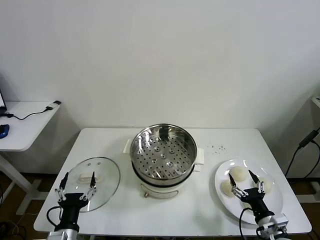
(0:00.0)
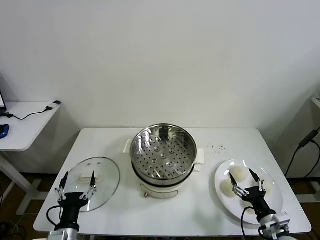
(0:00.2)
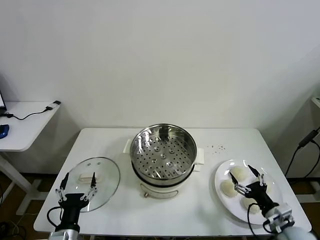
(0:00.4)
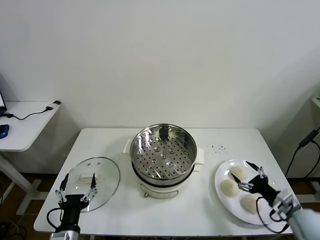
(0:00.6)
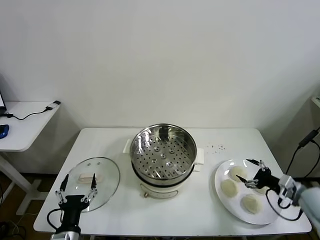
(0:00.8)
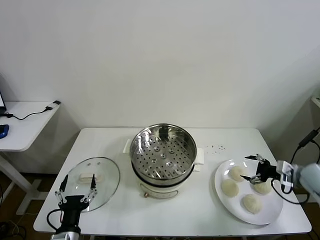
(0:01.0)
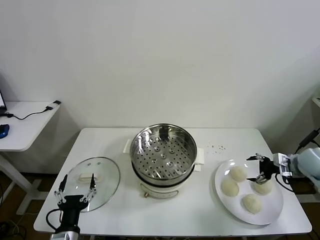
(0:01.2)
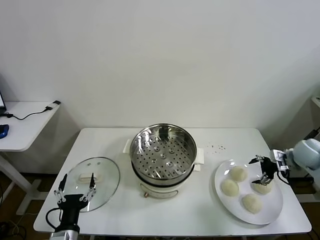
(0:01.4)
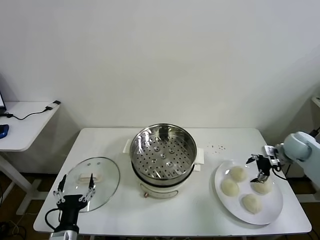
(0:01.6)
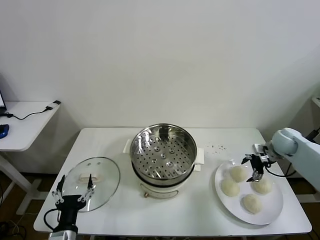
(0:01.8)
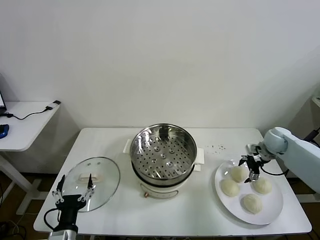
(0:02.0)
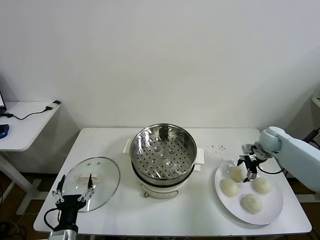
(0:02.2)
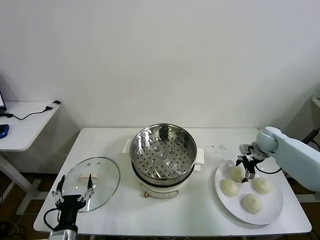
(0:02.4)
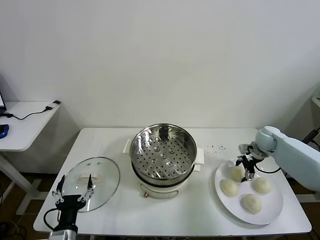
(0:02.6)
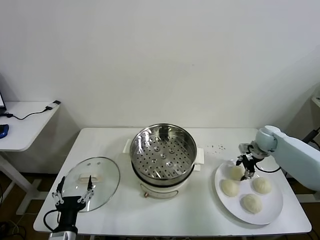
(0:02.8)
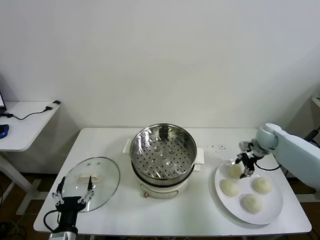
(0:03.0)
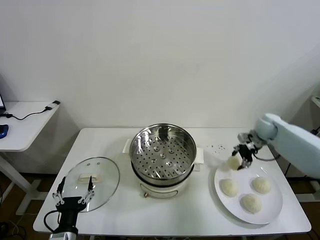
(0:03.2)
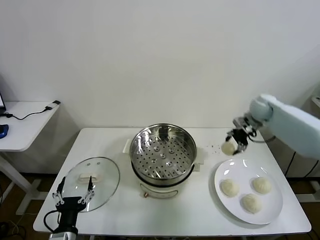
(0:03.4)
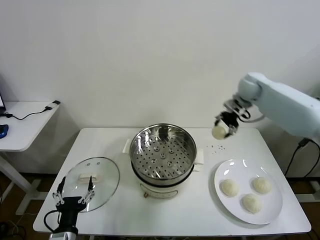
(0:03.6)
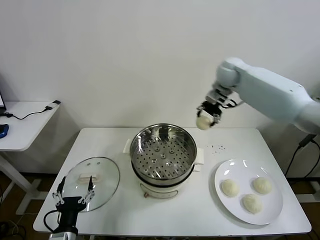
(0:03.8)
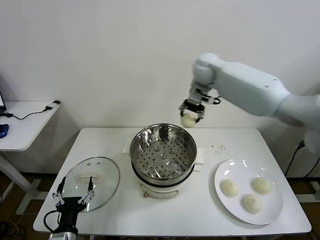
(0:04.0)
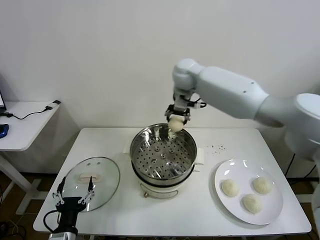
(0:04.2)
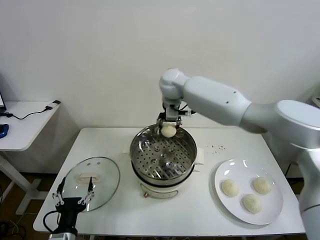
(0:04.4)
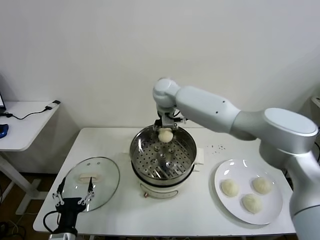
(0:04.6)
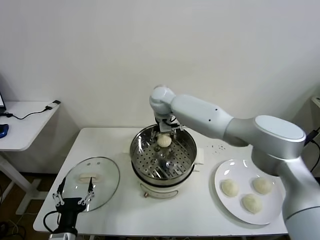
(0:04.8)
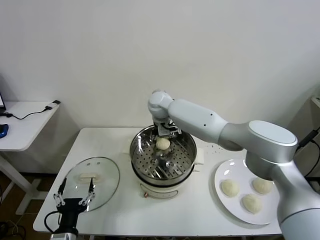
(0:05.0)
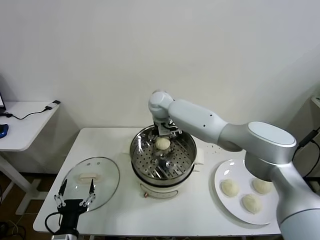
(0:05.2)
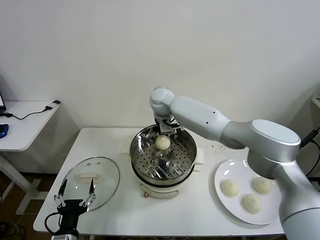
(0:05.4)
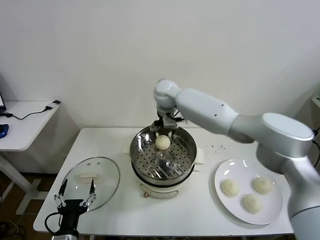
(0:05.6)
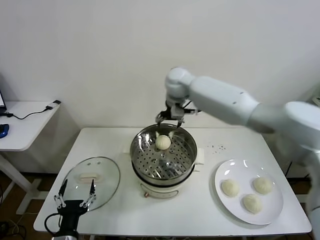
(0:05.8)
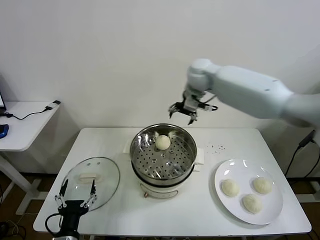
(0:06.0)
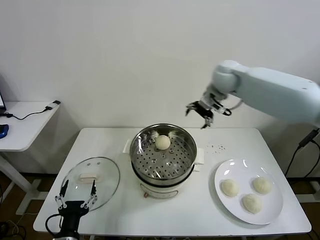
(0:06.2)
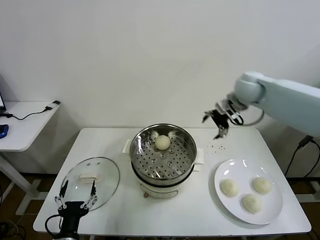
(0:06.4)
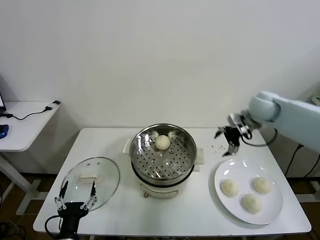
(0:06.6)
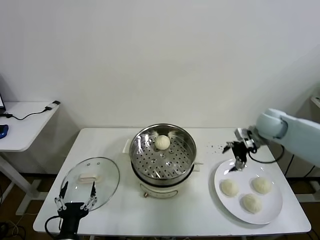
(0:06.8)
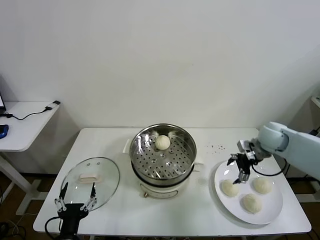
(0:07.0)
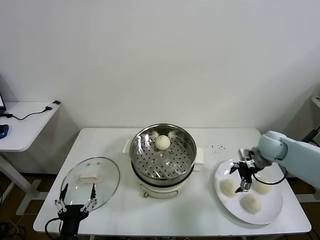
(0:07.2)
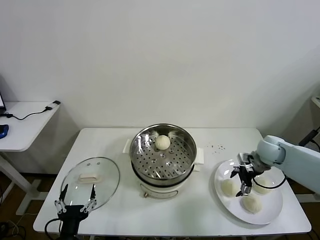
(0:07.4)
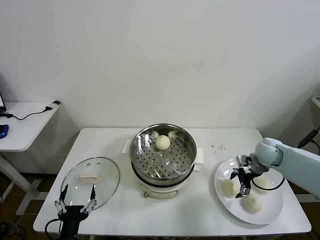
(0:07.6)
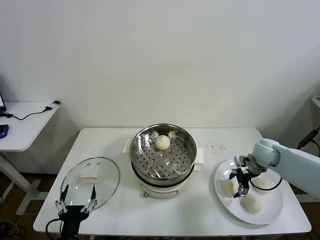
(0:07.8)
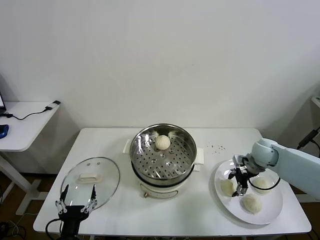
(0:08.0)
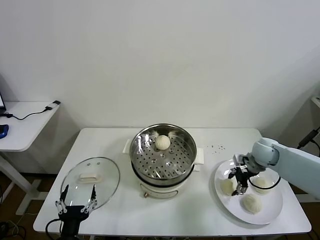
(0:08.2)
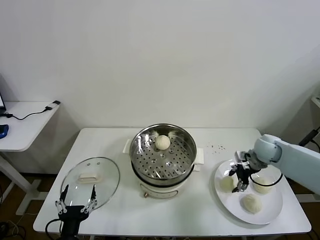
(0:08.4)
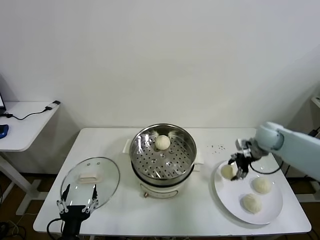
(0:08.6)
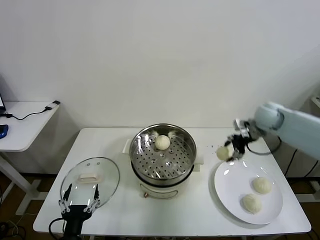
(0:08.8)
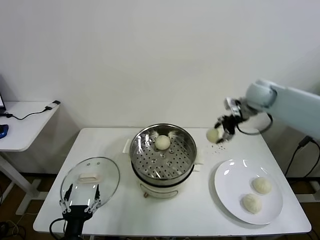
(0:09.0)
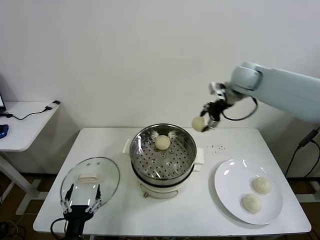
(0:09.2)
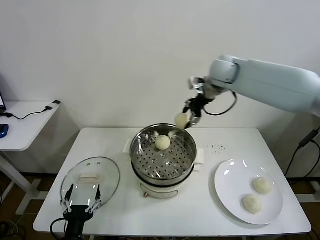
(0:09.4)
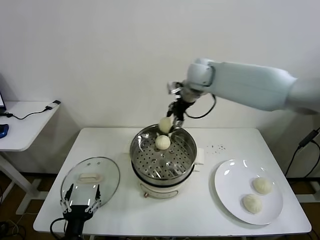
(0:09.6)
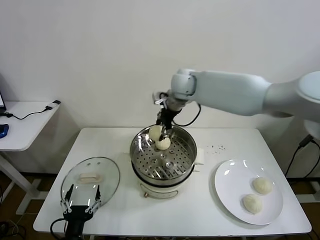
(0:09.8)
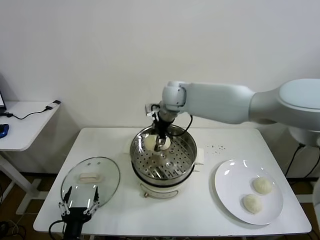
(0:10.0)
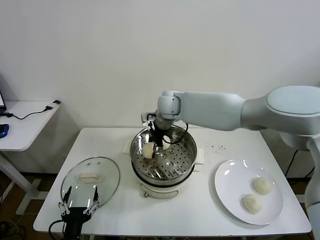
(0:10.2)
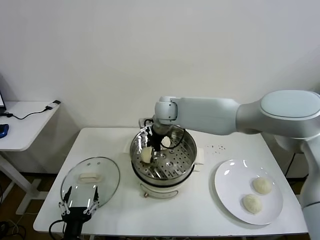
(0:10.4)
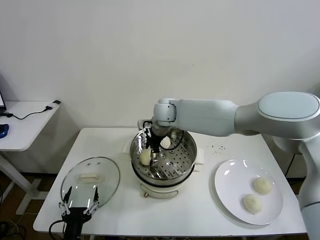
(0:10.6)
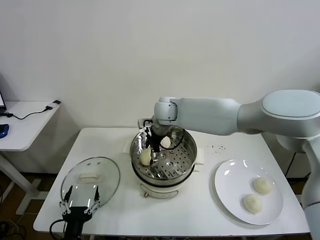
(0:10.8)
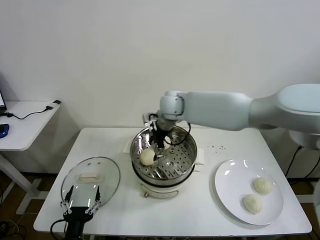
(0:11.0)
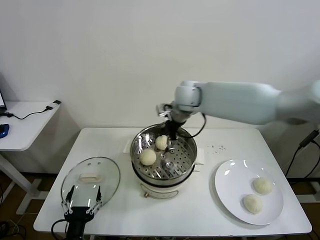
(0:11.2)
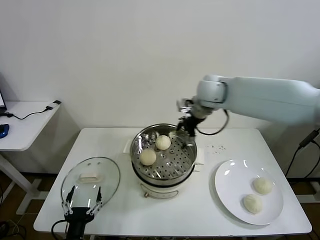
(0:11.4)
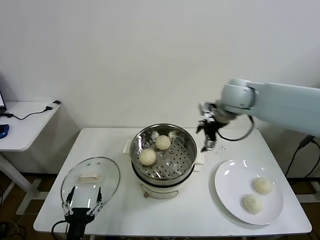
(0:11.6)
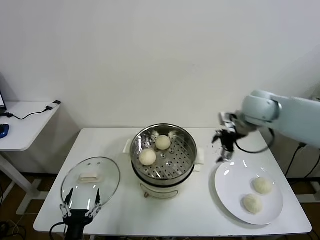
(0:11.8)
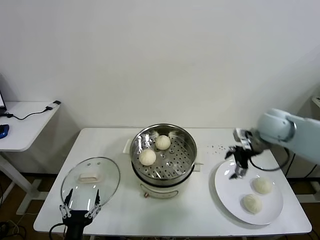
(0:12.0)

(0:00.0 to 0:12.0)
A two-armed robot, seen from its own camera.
Task of the whole recording: take steamed baozi put them in steamer then cover it.
Step, 0:00.0 - 0:03.0: Grasp the baozi in the plate with right gripper.
Step, 0:03.2 - 0:05.6: Place the baozi on the steamer with right gripper.
Step, 0:05.8 - 0:08.2: Grasp the baozi in the plate with right gripper.
Step, 0:08.4 - 0:11.2: Place the baozi on the steamer with right gripper.
0:01.6 - 0:03.0: The right gripper moves forward and to the left, some 10 cm, and closes its fingers.
0:03.0 - 0:04.4: The right gripper moves to the left and upward, approximately 40 cm.
0:04.4 - 0:06.0: The right gripper travels to the right by approximately 15 cm, and opens.
0:06.0 - 0:07.6: The right gripper heads downward, to the right and backward, covering about 35 cm.
0:07.6 - 0:09.0: The right gripper travels upward and forward by approximately 25 cm, and closes.
0:09.0 - 0:10.4: The right gripper moves to the left, about 30 cm.
0:10.4 - 0:12.0: The right gripper heads to the right, covering approximately 35 cm, and opens its fingers.

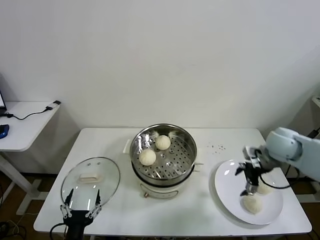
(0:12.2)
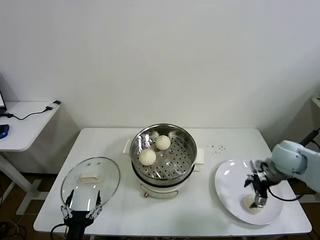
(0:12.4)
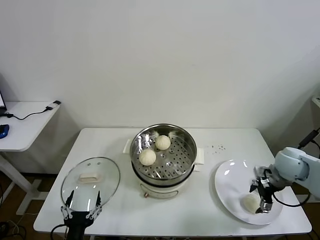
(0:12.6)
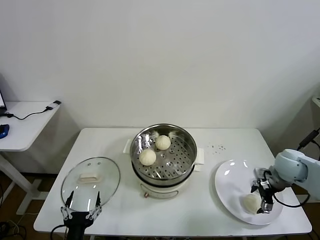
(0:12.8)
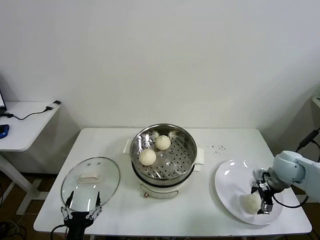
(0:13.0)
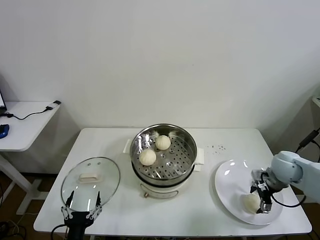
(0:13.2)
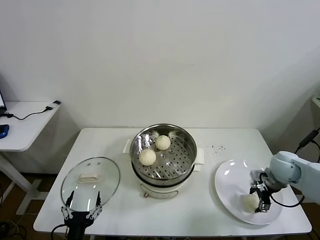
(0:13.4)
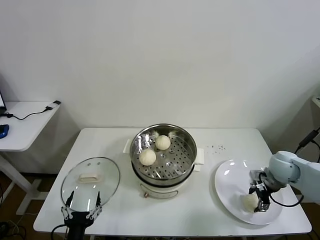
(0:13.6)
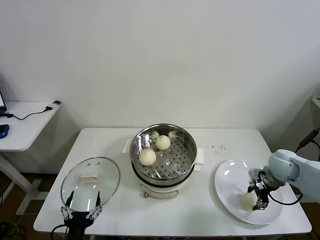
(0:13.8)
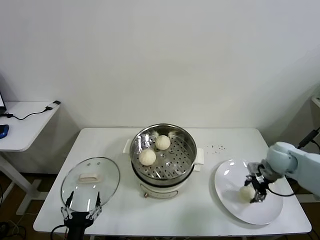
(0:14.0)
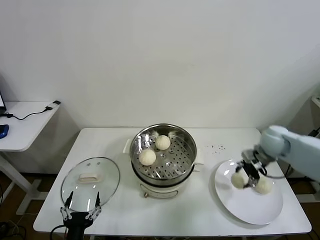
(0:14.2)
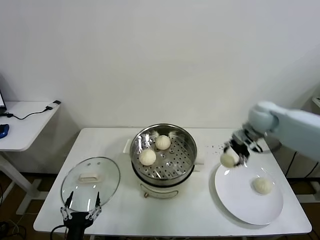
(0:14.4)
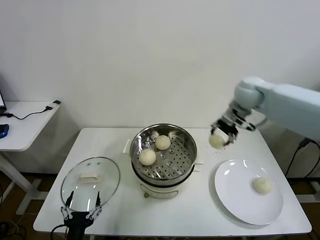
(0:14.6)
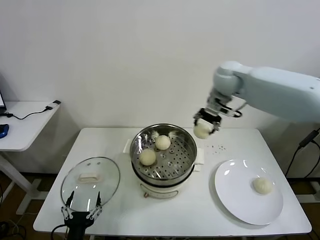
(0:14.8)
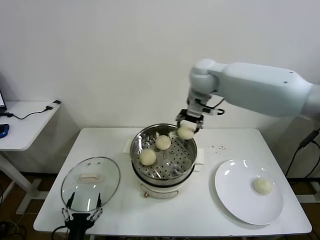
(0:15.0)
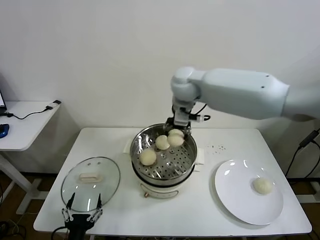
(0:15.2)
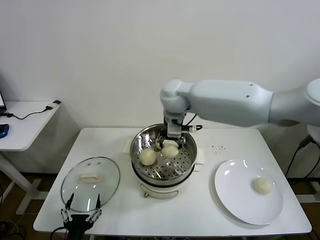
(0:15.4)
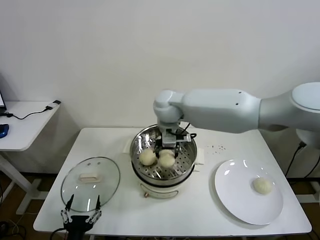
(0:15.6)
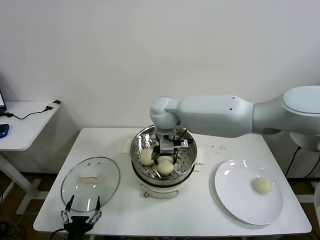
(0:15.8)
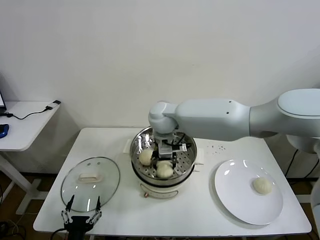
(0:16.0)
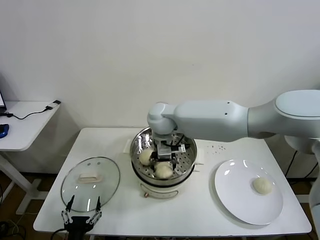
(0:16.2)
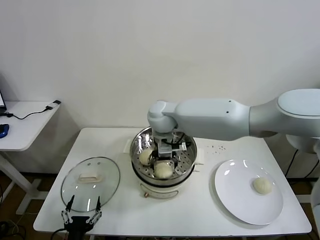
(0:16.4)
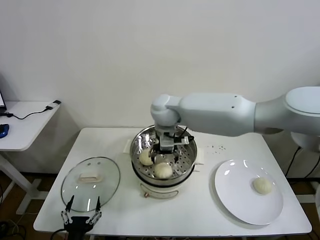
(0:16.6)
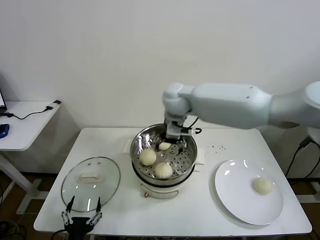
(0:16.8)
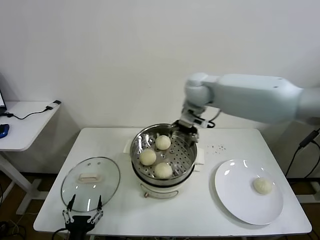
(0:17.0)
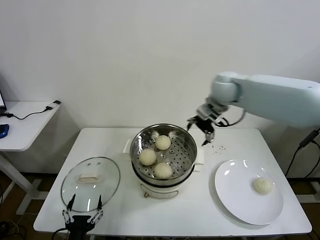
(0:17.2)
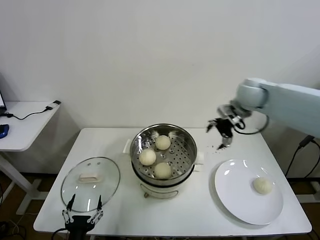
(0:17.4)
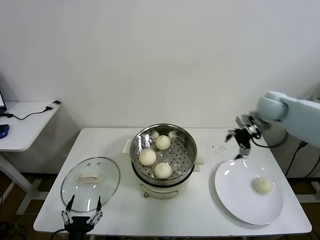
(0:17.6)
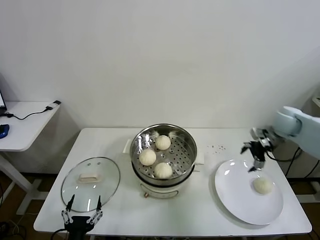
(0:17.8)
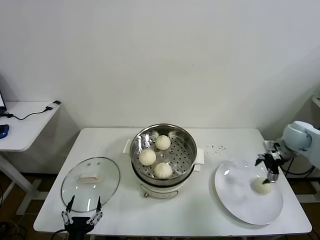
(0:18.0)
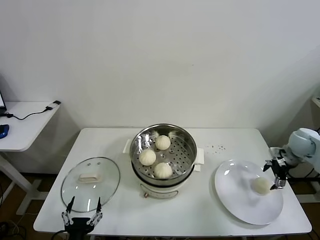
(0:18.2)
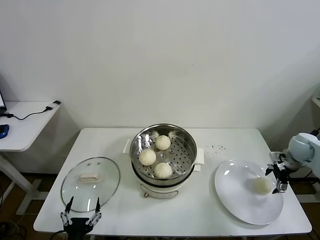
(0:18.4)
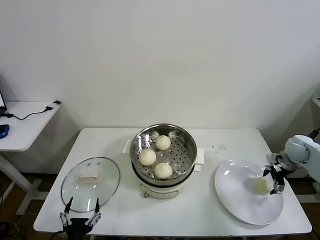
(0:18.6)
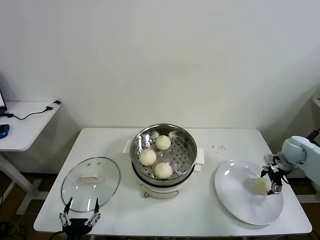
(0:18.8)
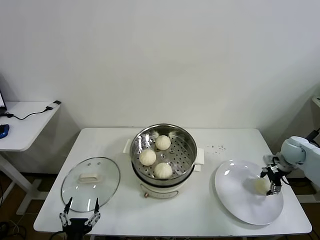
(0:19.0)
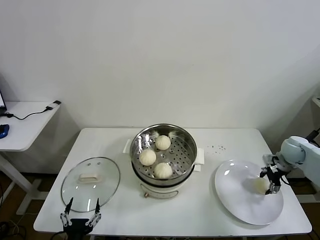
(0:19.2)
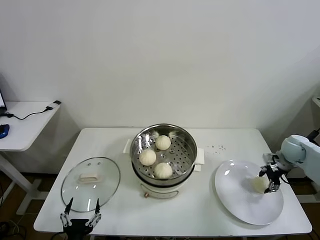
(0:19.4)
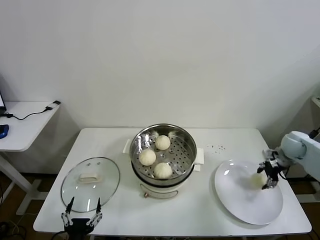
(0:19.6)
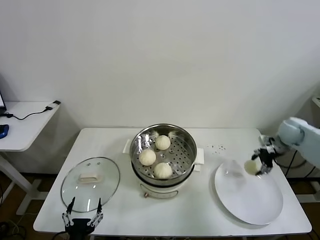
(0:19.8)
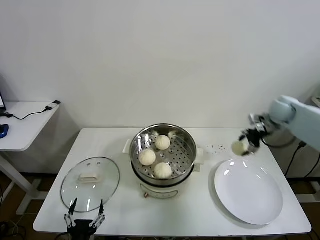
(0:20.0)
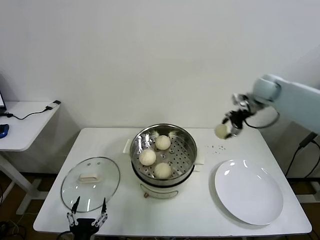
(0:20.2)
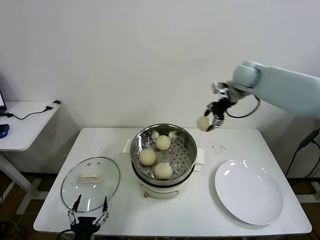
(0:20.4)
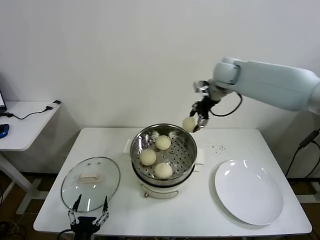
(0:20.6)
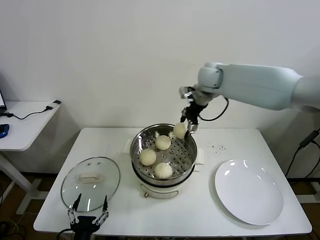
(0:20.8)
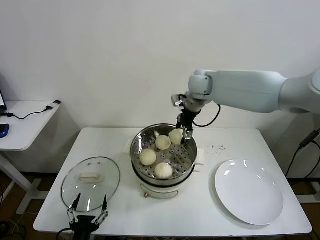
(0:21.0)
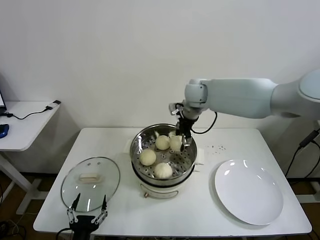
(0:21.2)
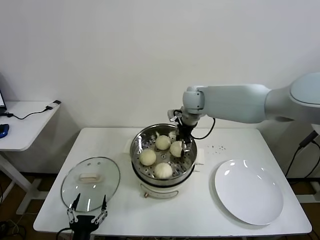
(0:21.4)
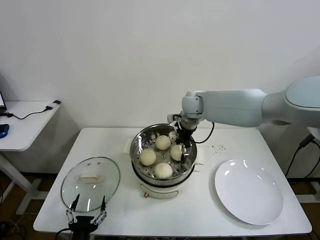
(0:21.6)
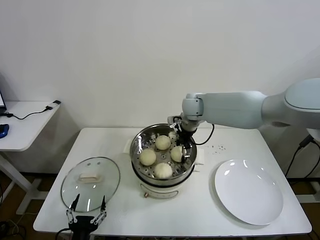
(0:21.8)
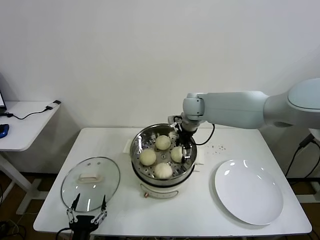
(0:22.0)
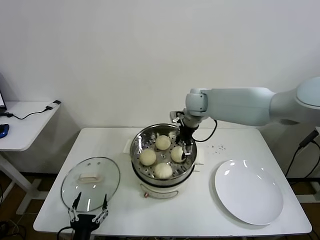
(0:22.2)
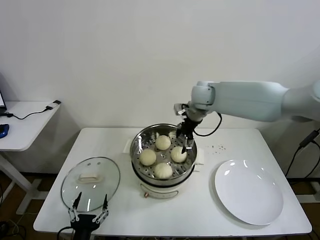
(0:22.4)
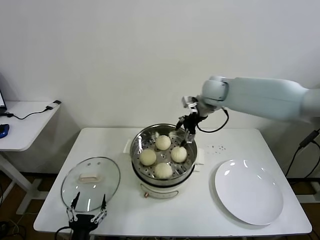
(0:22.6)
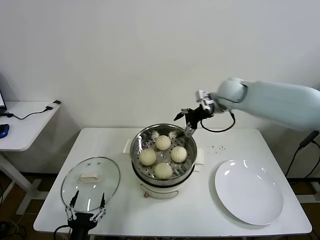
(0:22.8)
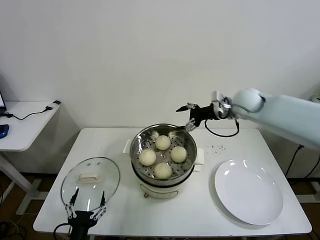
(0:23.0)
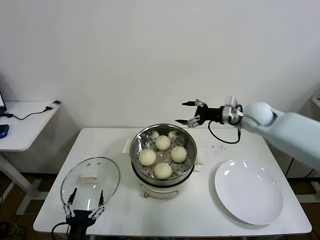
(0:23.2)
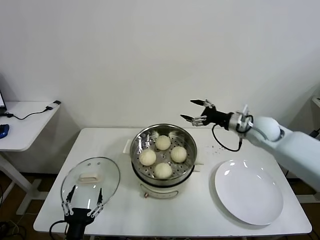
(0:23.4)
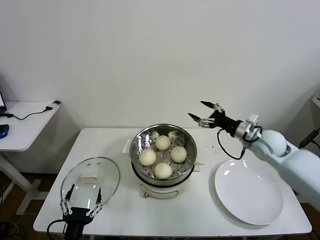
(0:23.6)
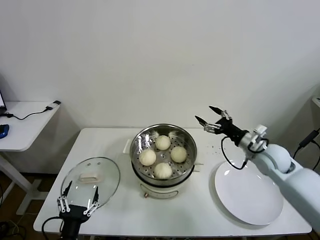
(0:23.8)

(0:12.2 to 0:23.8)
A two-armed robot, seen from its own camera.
Task of the whole recording: take steamed baozi put them in steamer then cover it.
Step, 0:12.2 - 0:13.6: Grasp the baozi in the plate with right gripper.
Step, 0:13.8 - 0:16.4: Place the baozi on the steamer with right gripper.
Step, 0:16.6 - 0:19.2: Grasp the baozi in the plate with right gripper.
Step, 0:19.6 - 0:22.2: Place the baozi on the steamer with right gripper.
0:12.2 - 0:13.6: The right gripper goes roughly 10 cm downward, and closes its fingers.
0:13.6 - 0:15.0: The right gripper moves to the left, upward and forward, some 40 cm.
0:15.0 - 0:16.6: The right gripper heads to the left and downward, covering roughly 10 cm, and opens its fingers.
0:16.6 - 0:18.0: The right gripper shifts approximately 50 cm to the right.
0:18.0 - 0:19.4: The right gripper heads downward, covering approximately 5 cm, and closes up.
0:19.4 - 0:21.0: The right gripper travels to the left and upward by approximately 40 cm.
0:21.0 - 0:22.4: The right gripper opens.
0:22.4 - 0:23.8: The right gripper shifts some 30 cm to the right, backward and downward.
